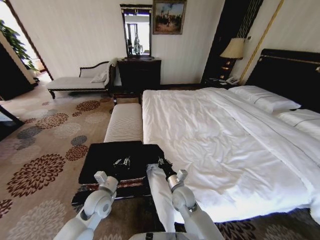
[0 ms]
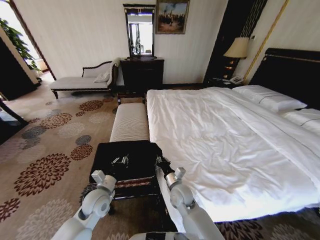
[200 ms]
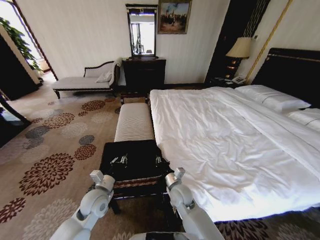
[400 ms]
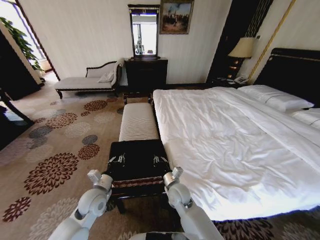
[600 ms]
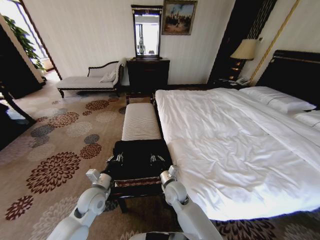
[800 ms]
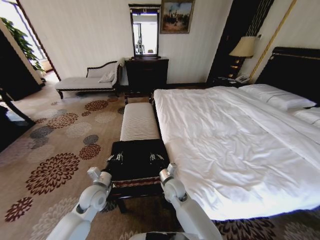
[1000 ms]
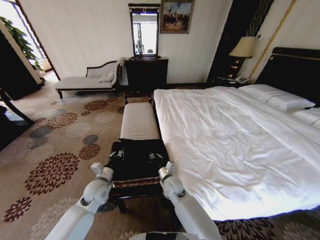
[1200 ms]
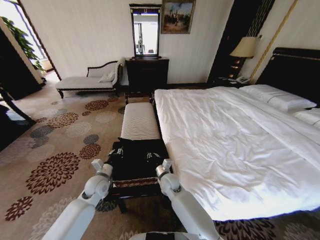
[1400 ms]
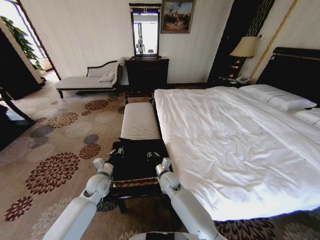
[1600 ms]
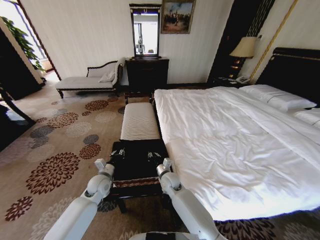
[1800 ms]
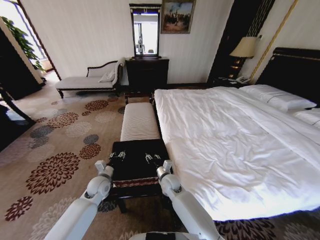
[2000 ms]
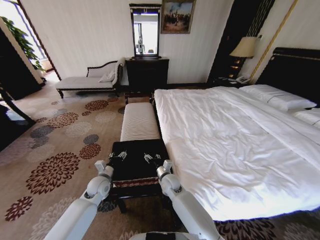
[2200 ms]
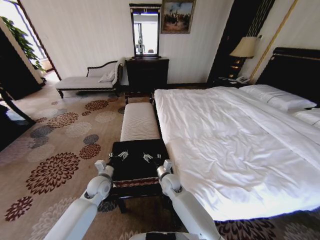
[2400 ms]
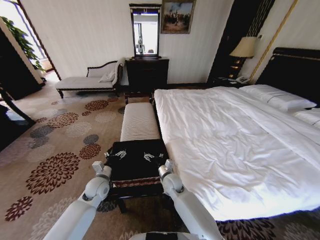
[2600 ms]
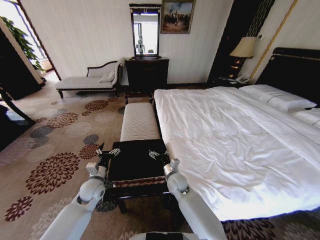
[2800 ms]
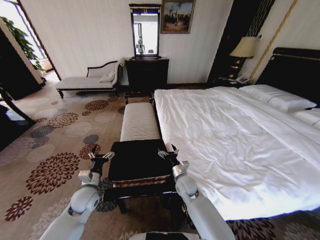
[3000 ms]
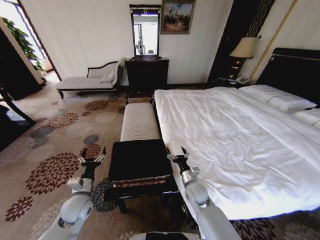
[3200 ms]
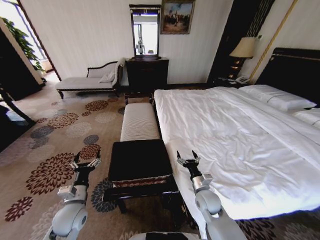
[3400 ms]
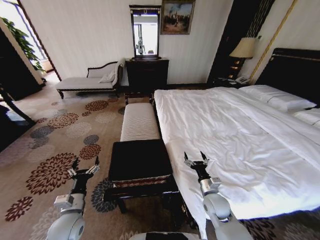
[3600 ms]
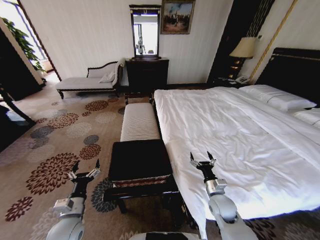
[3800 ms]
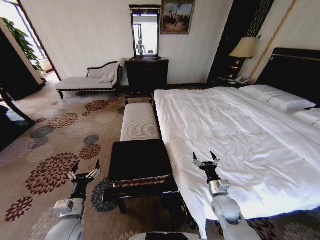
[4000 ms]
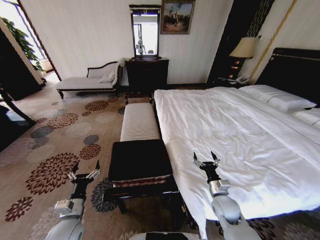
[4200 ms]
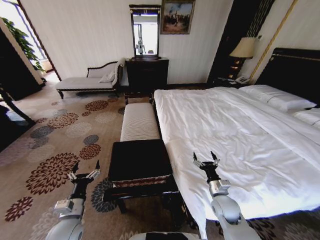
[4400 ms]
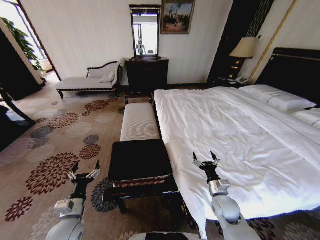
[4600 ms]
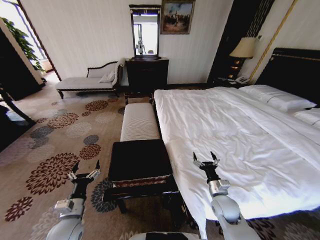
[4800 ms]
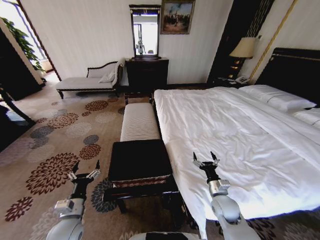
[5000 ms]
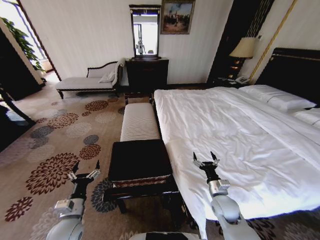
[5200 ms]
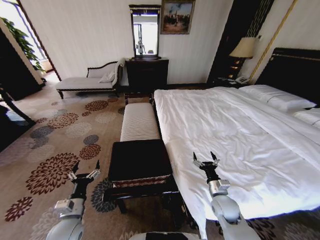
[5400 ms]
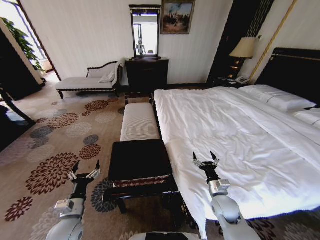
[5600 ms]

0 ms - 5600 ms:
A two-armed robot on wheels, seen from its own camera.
Task of the whole recording: Fold the clothes on the bed and place them into the basket.
0 ms - 1400 ms: The grippers both shift forward by some 5 cm.
1400 ms - 2800 ms: The right gripper opens. Meanwhile the left gripper opens its fingers.
2800 ms - 4200 ms: The right gripper heads to the right and backward, covering roughly 20 cm. The left gripper travels backward by about 15 cm.
4200 ms - 5600 ms: Both grippers stay about where they are.
